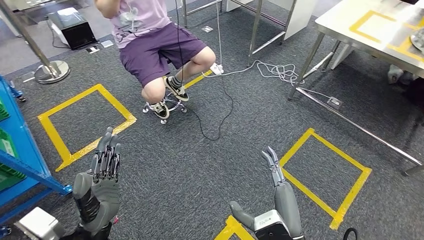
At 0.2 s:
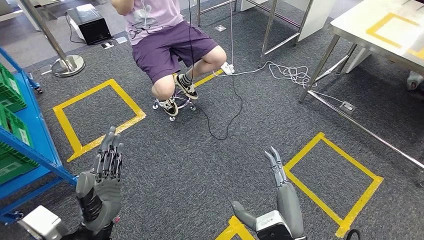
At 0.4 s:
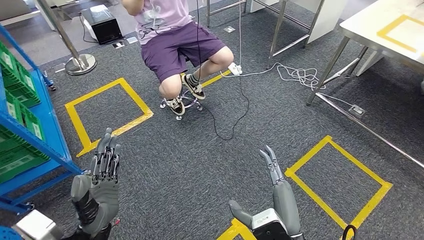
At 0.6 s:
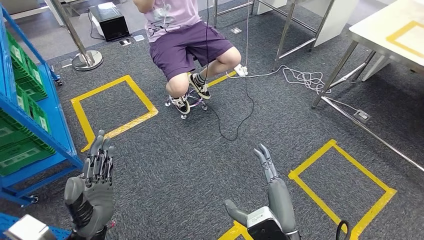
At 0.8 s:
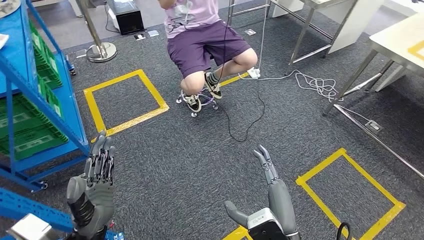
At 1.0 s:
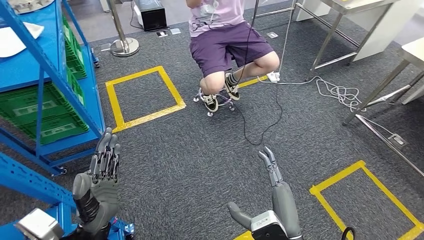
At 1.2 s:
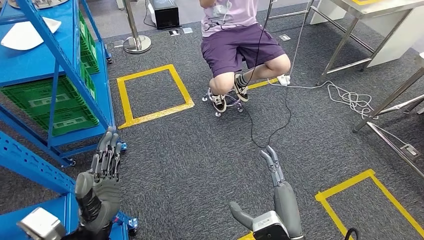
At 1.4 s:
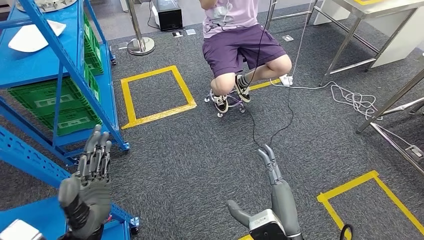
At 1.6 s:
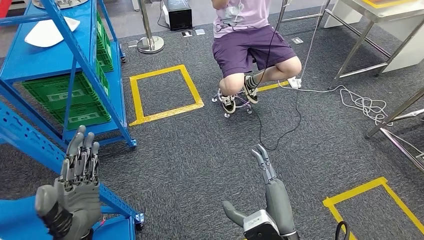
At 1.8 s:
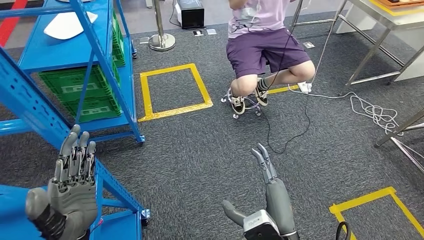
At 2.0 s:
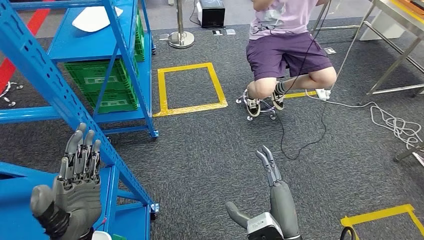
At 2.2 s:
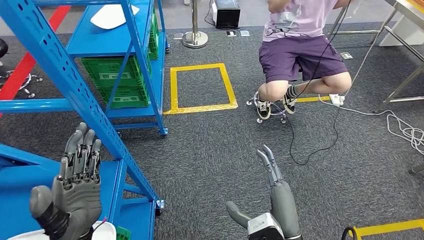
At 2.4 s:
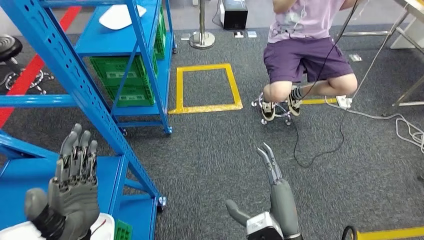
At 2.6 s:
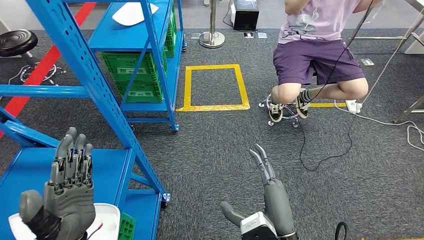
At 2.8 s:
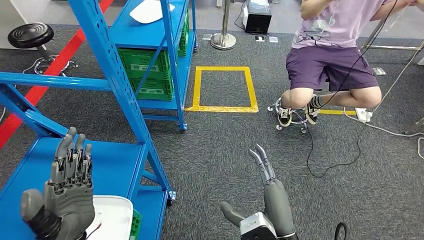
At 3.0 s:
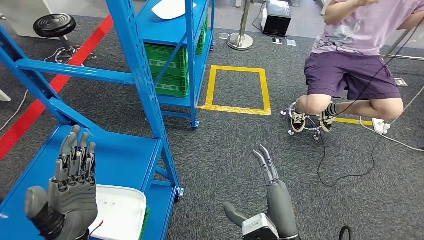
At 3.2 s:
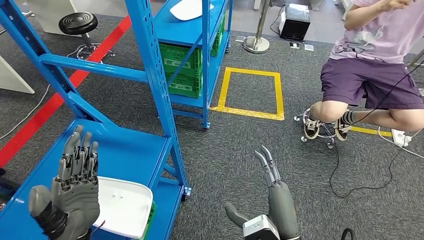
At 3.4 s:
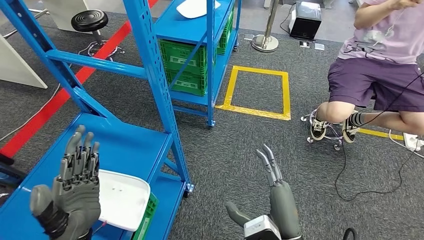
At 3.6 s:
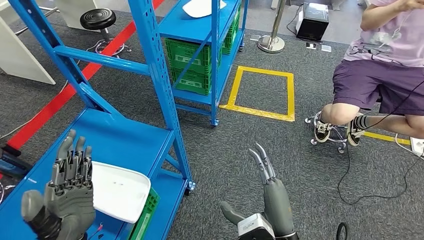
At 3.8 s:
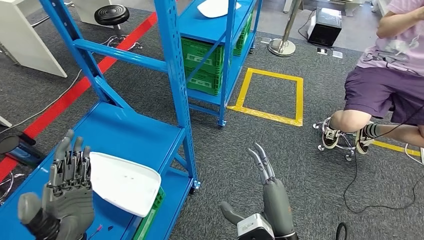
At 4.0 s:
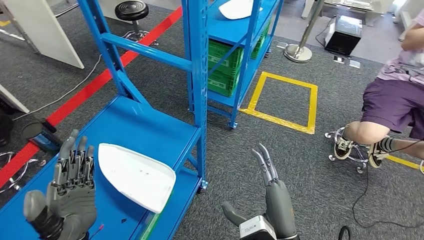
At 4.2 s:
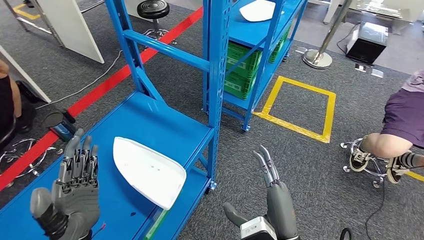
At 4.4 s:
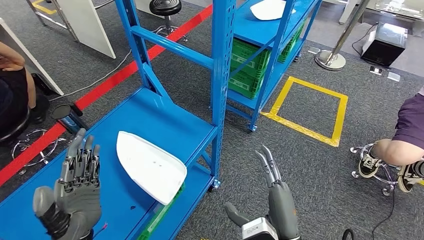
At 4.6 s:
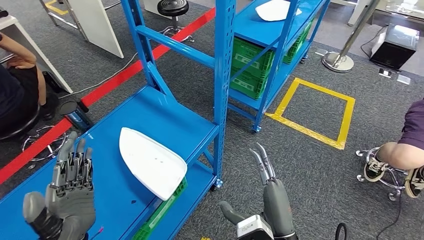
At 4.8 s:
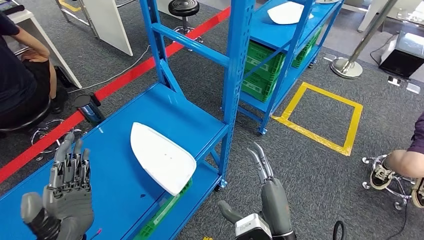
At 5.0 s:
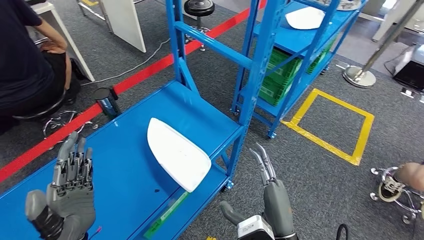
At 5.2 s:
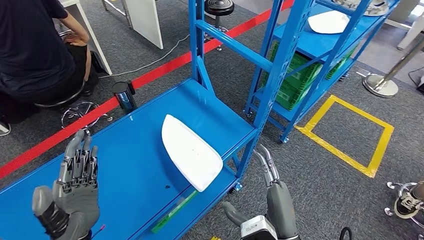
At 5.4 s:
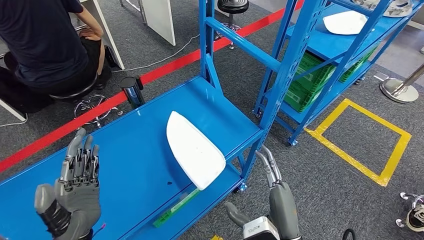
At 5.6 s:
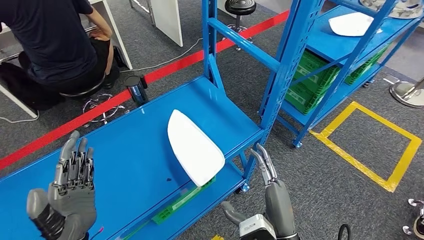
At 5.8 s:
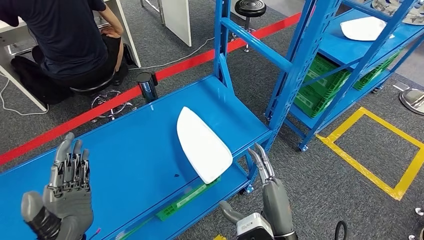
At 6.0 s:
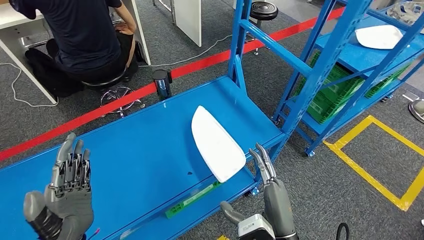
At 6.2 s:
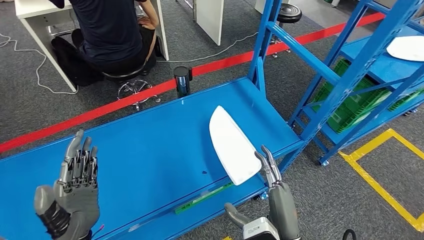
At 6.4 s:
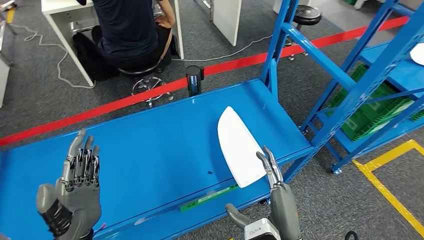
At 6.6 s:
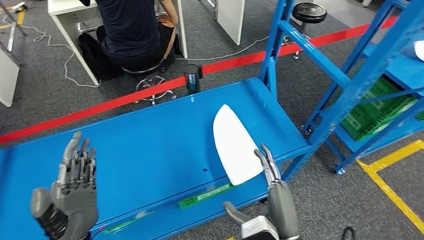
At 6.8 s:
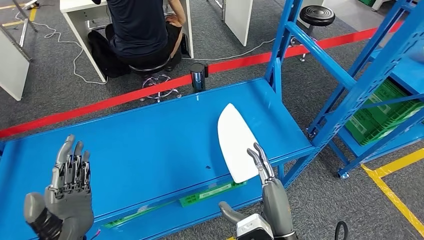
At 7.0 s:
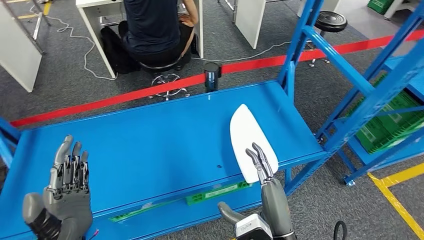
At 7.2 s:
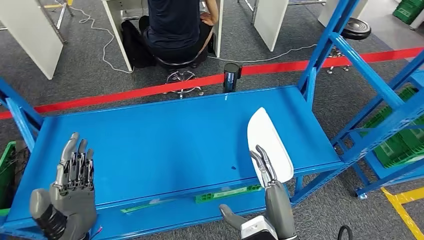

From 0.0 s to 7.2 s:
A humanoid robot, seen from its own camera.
Step, from 0.0 s to 7.0 s: Move to the initial position of the workbench.
